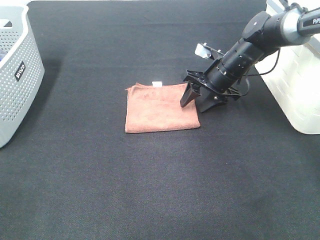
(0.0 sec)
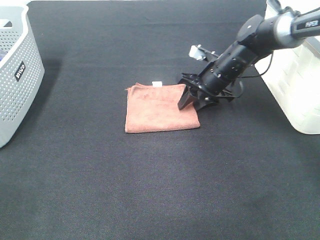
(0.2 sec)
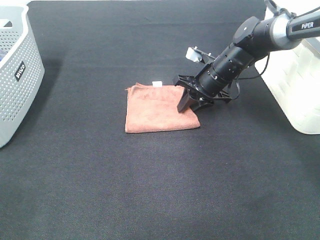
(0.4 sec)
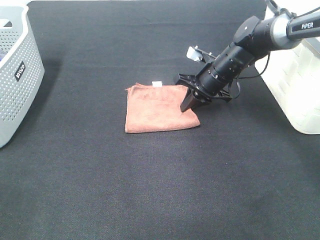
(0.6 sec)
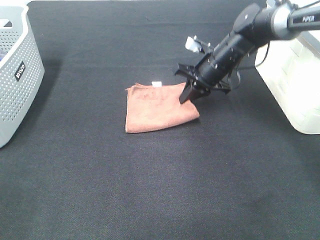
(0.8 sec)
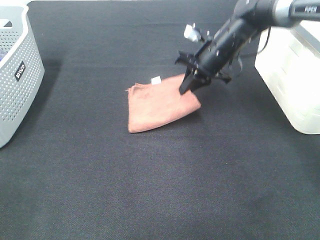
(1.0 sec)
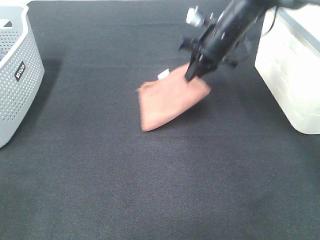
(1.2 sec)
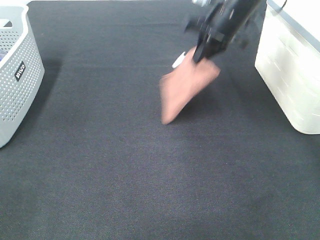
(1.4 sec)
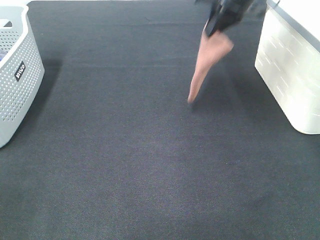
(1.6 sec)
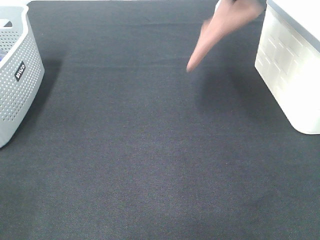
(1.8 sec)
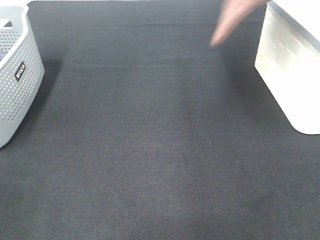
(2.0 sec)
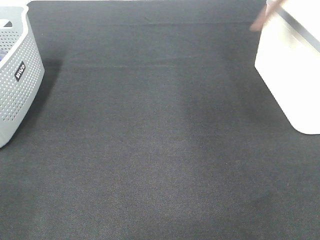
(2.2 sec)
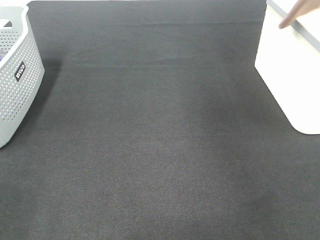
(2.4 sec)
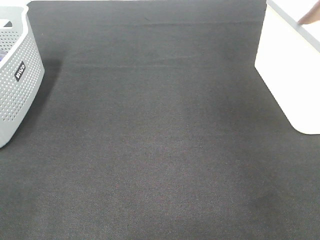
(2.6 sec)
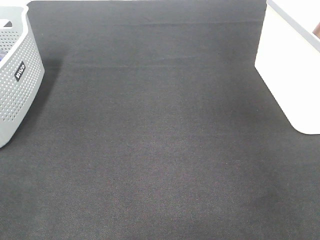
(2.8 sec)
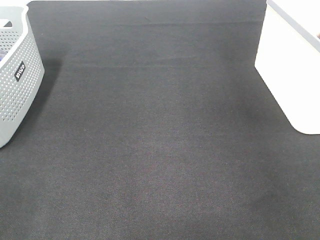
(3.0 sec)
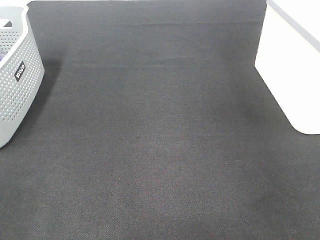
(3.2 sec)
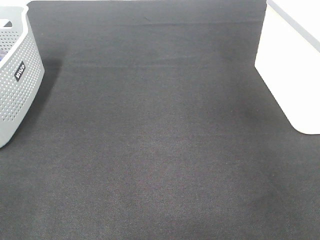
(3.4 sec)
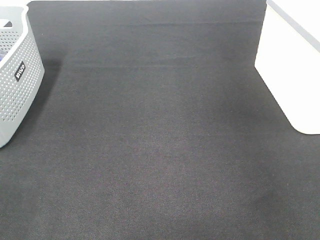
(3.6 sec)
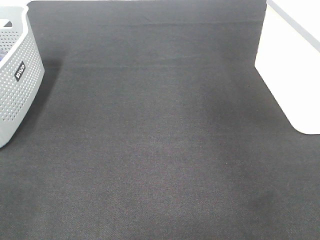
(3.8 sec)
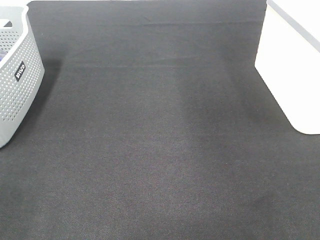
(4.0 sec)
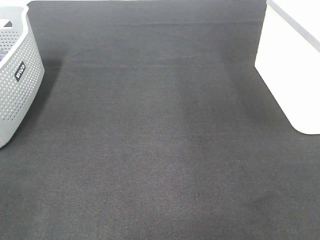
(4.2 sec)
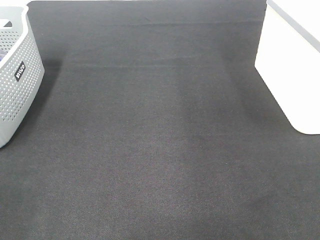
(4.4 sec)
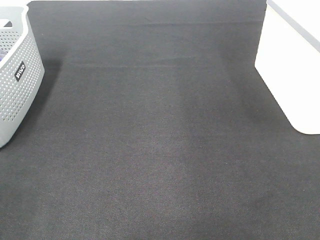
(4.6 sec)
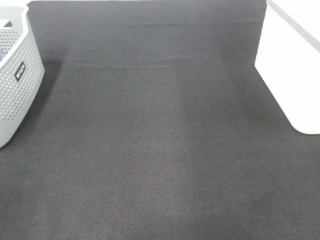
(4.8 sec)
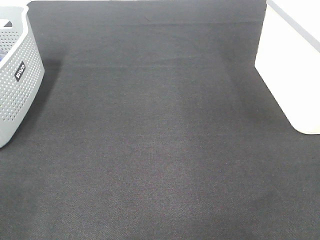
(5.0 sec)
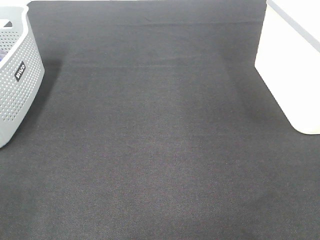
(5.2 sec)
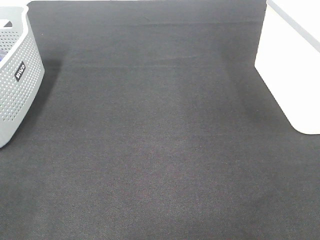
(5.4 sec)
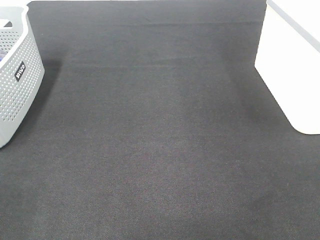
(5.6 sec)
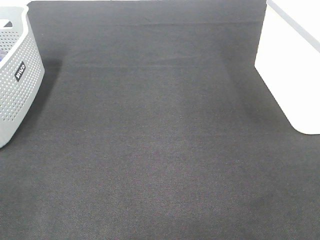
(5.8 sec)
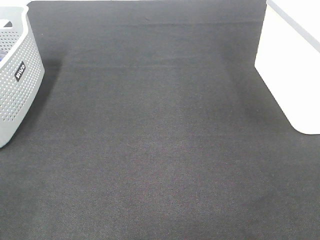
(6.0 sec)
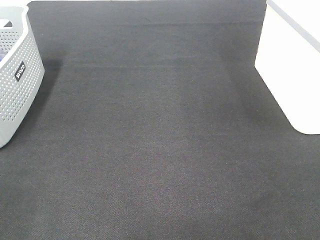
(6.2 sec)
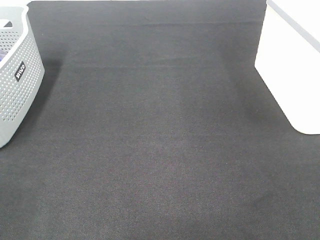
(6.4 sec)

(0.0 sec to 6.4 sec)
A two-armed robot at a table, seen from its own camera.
Step, 0.6 sec - 3.4 sec: Right hand: place the brown towel in right basket.
0.0 sec - 1.6 sec: The right gripper shifts approximately 20 cm upward, and closes up.
1.6 sec - 3.2 sec: The right gripper travels to the right by roughly 25 cm, and opens its fingers.
